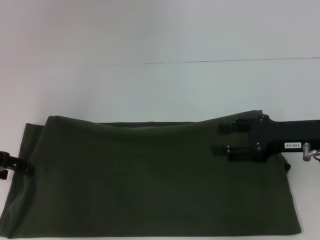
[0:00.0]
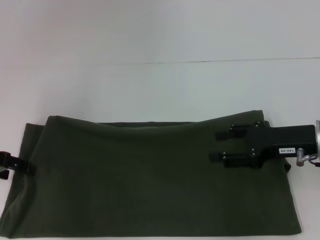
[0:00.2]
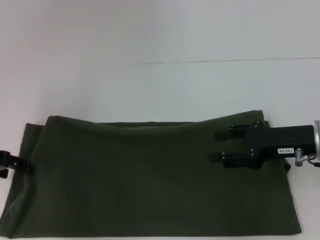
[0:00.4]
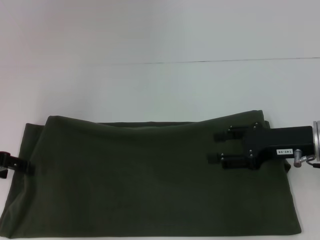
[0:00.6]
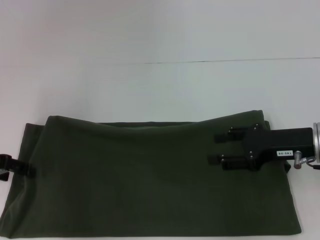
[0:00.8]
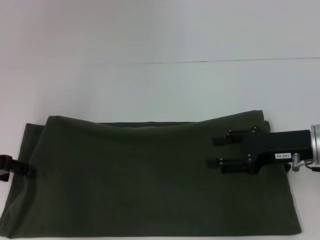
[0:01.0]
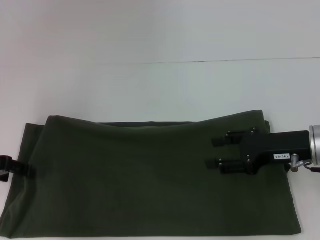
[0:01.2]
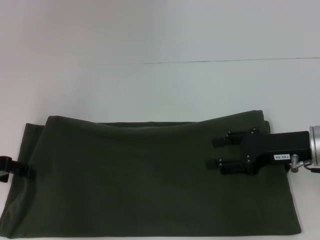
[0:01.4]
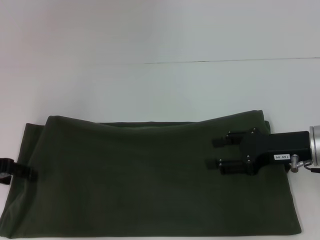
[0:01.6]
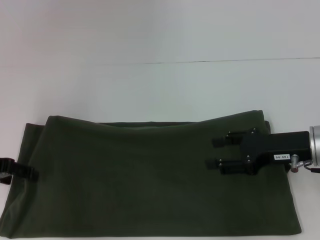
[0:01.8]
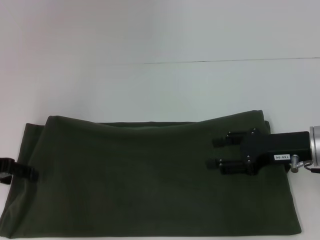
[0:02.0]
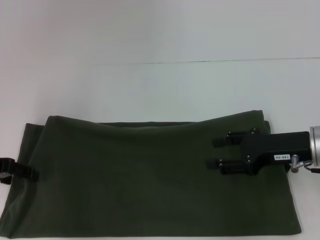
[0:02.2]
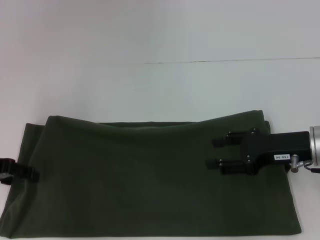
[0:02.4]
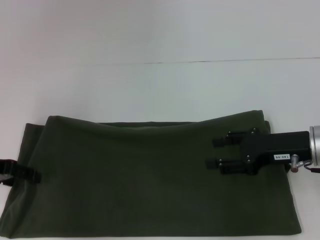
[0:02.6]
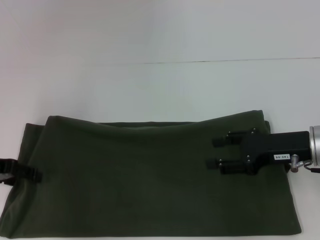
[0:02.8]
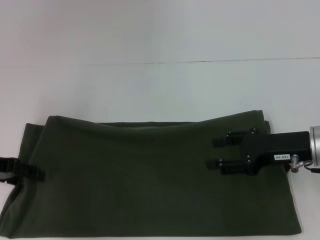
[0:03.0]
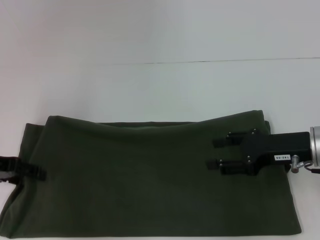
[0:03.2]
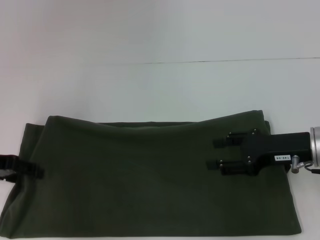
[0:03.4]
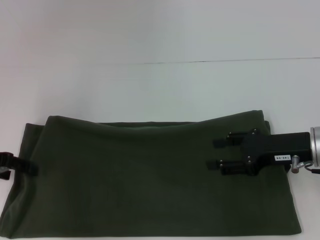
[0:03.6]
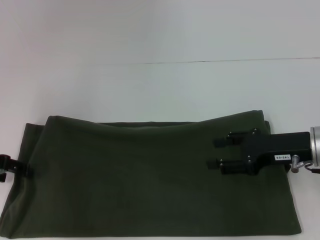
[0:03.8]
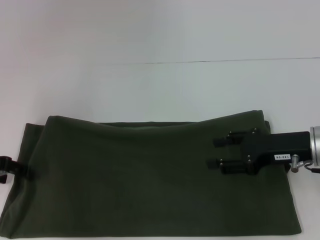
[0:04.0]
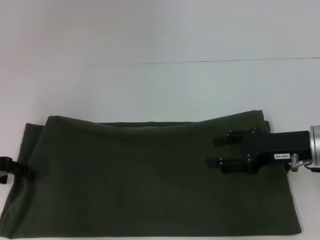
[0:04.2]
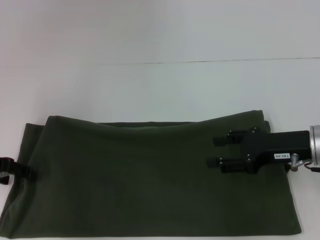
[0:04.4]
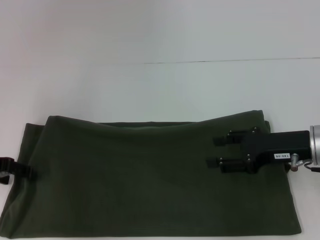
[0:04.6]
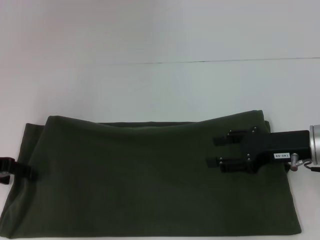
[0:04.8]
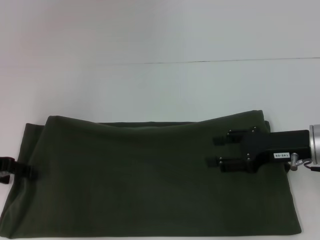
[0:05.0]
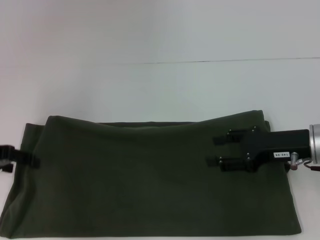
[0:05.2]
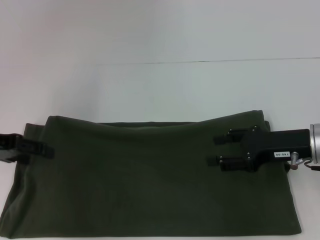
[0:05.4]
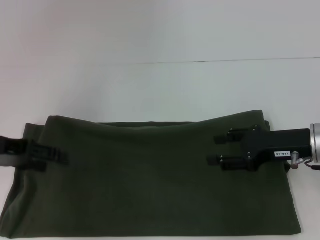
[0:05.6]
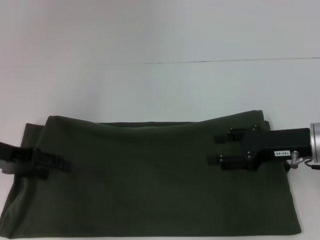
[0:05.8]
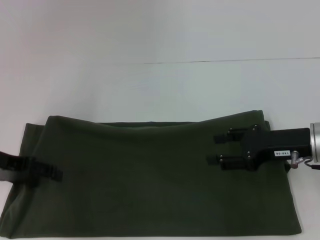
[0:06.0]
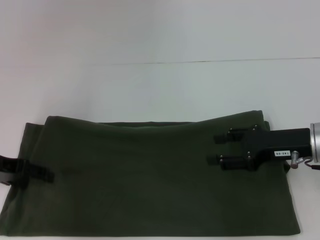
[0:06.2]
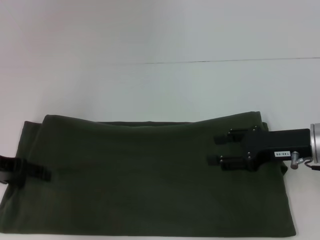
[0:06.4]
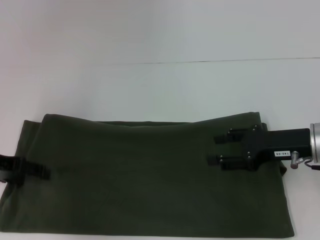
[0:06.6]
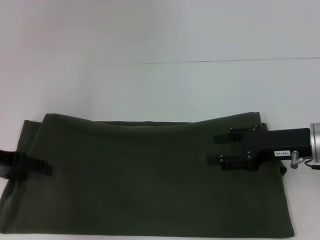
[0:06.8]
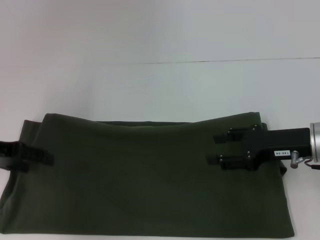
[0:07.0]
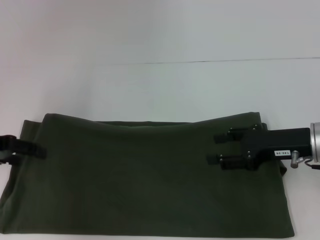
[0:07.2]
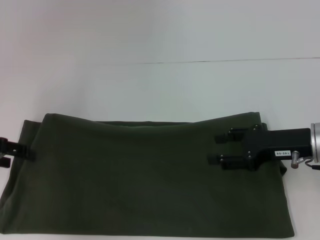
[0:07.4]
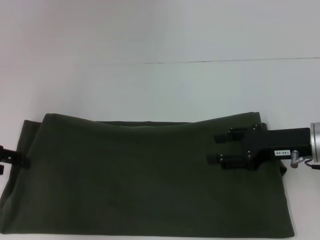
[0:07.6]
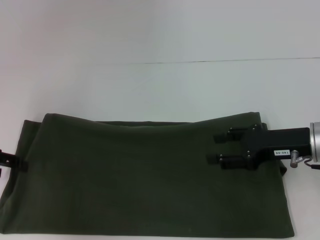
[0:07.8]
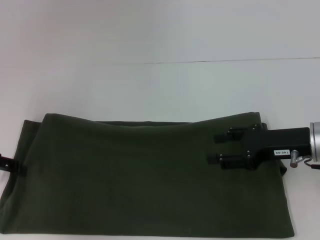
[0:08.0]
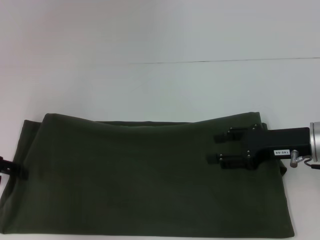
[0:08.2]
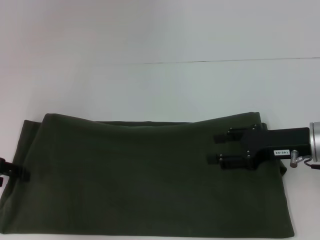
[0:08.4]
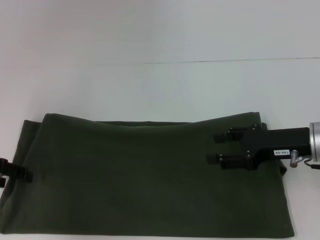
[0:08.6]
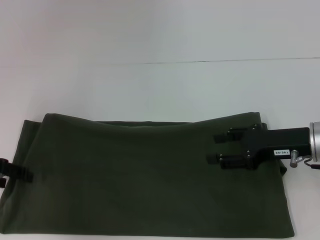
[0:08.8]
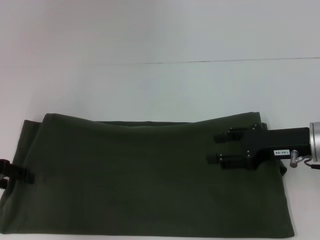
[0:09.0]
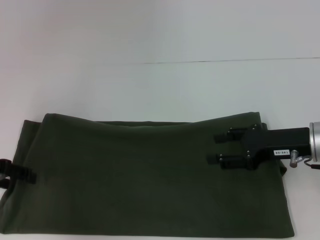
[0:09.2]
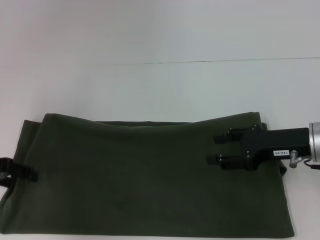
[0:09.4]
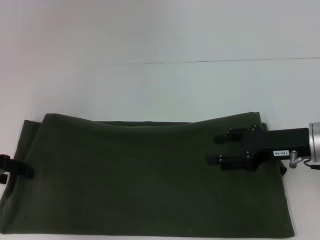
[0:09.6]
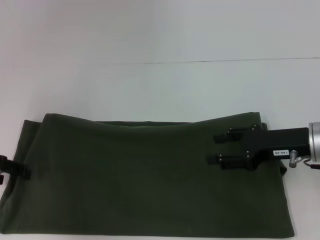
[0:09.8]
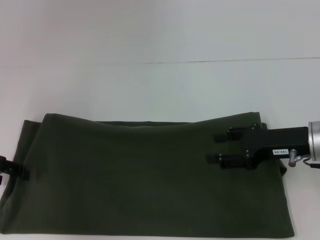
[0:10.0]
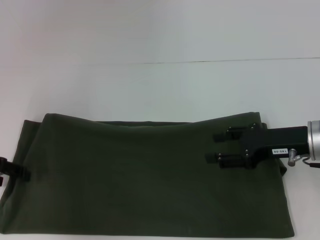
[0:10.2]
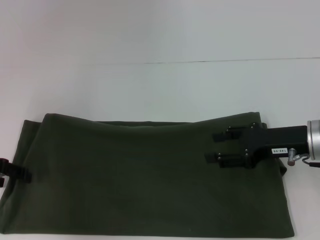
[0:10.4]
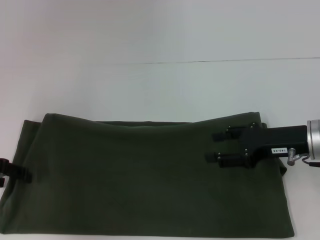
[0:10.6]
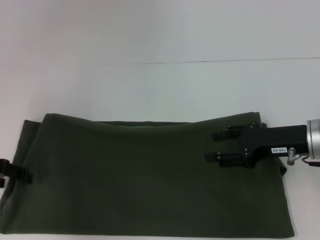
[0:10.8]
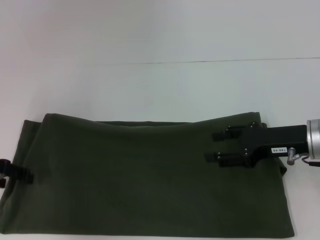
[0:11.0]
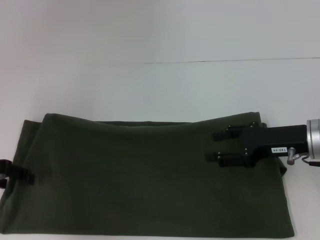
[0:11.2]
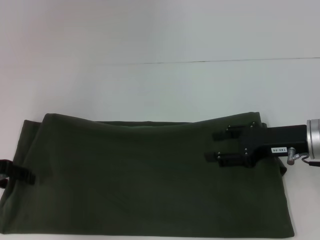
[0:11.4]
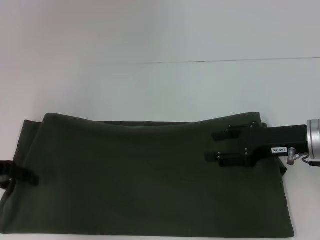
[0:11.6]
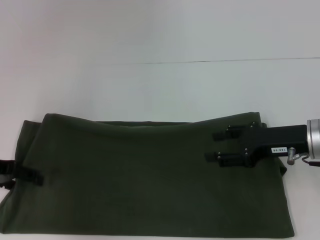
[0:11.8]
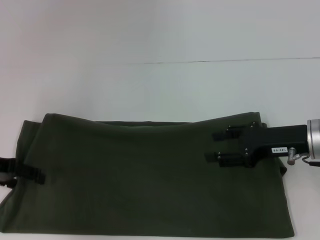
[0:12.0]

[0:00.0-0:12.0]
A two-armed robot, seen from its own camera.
0:00.0 to 0:01.6: The grippers stay close to where they were, moving slightly.
0:01.6 to 0:04.4: Neither gripper changes place.
0:04.4 to 0:09.0: There are only small adjustments of the grippers.
0:09.0 to 0:10.4: The two grippers keep their place.
0:10.4 to 0:12.0: The grippers make only small movements.

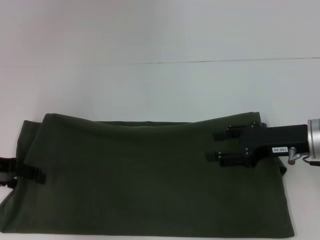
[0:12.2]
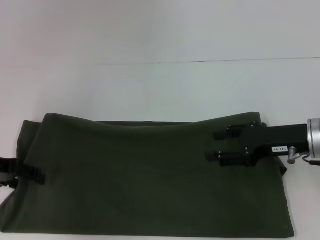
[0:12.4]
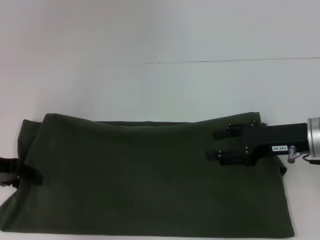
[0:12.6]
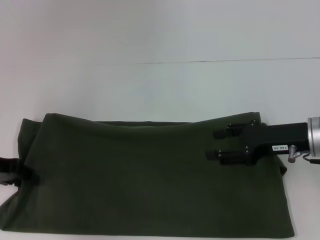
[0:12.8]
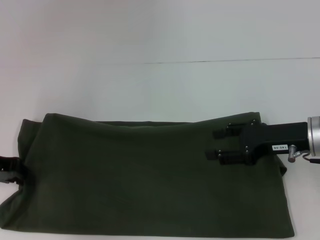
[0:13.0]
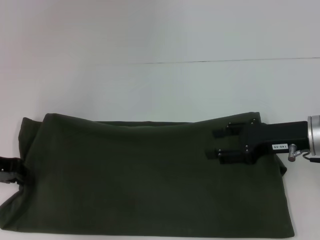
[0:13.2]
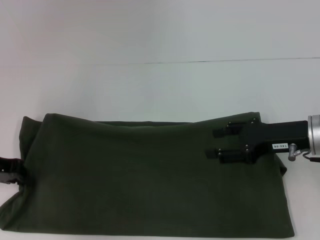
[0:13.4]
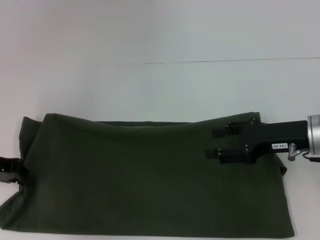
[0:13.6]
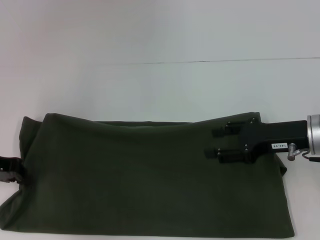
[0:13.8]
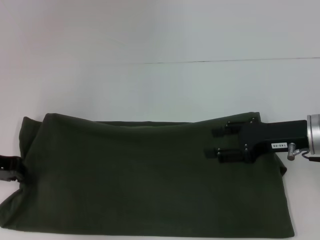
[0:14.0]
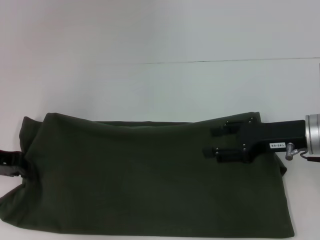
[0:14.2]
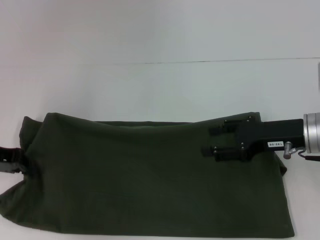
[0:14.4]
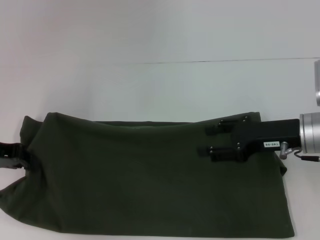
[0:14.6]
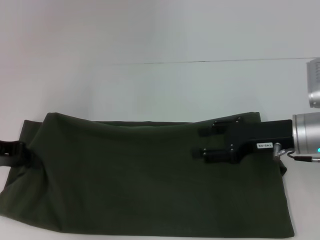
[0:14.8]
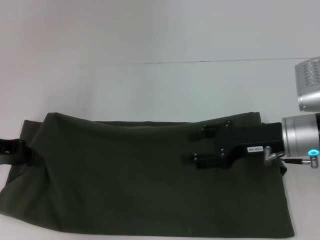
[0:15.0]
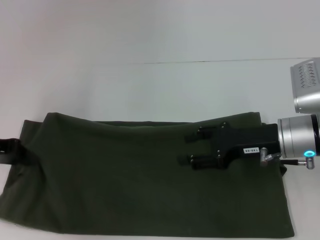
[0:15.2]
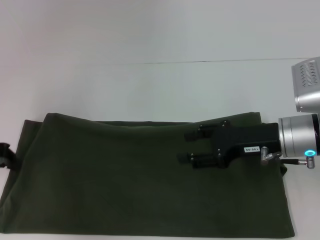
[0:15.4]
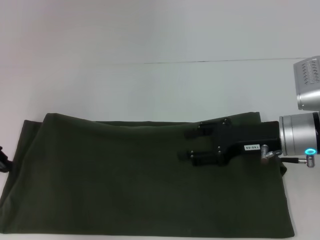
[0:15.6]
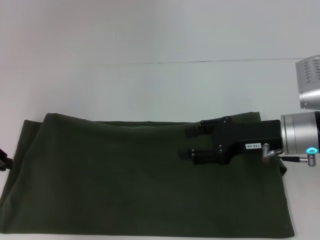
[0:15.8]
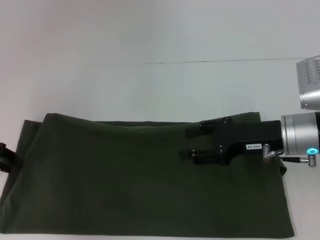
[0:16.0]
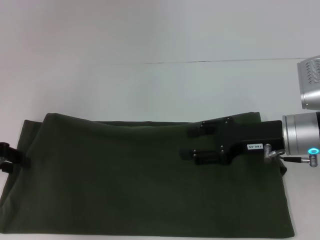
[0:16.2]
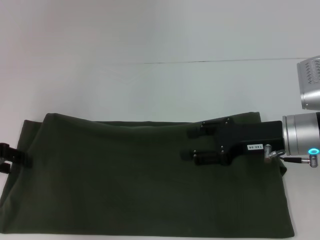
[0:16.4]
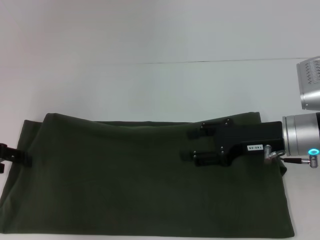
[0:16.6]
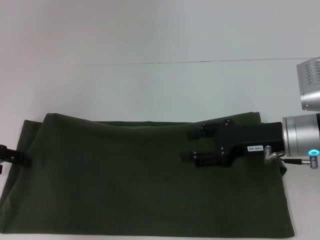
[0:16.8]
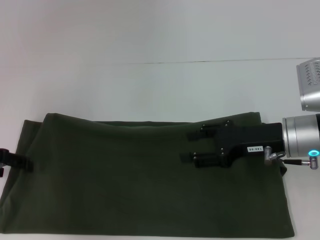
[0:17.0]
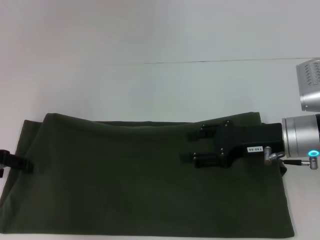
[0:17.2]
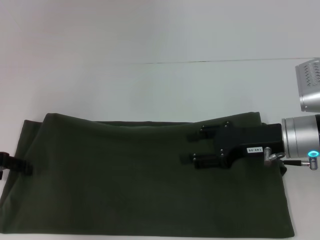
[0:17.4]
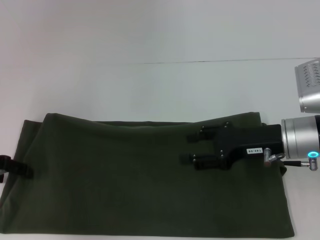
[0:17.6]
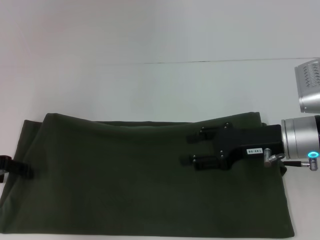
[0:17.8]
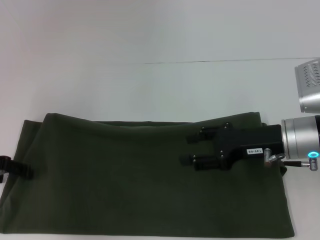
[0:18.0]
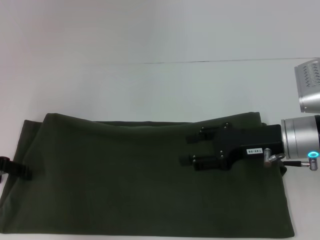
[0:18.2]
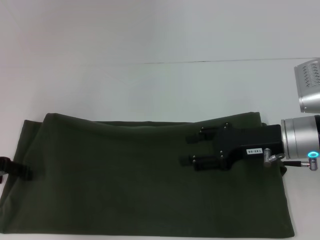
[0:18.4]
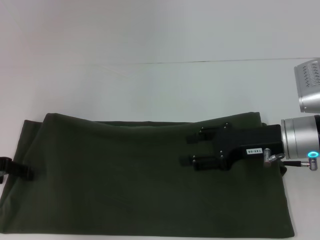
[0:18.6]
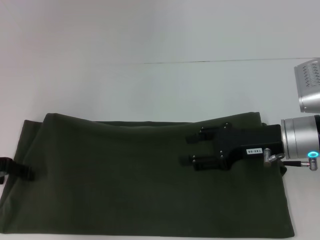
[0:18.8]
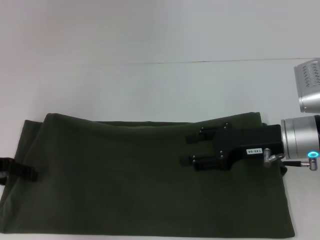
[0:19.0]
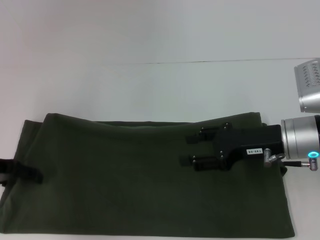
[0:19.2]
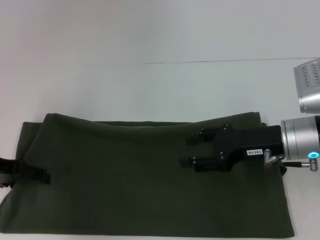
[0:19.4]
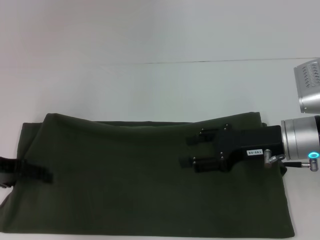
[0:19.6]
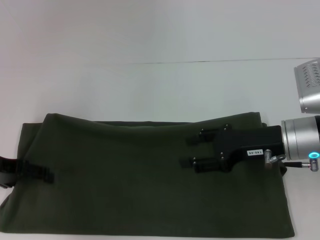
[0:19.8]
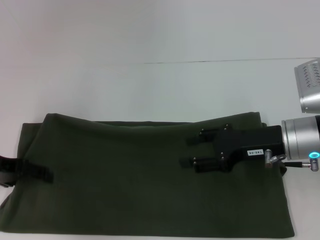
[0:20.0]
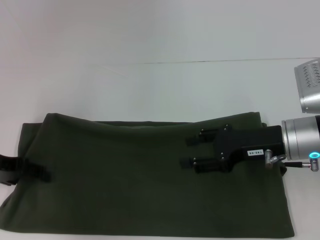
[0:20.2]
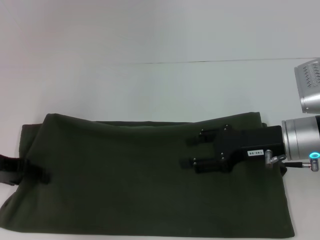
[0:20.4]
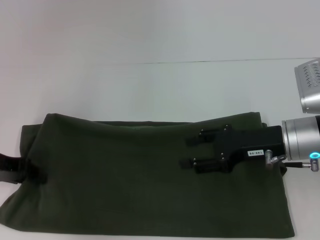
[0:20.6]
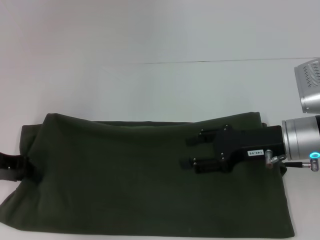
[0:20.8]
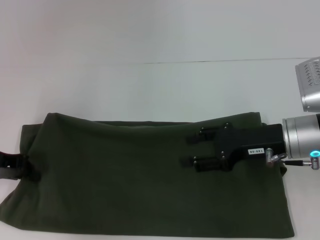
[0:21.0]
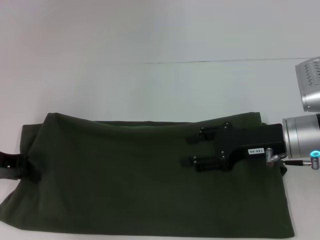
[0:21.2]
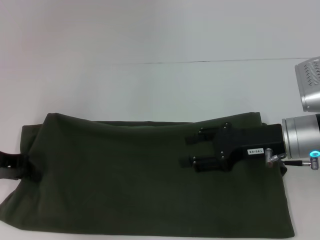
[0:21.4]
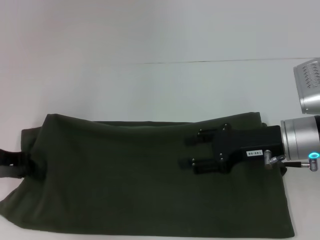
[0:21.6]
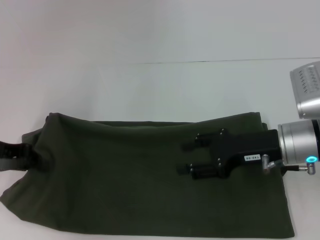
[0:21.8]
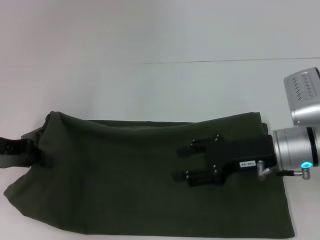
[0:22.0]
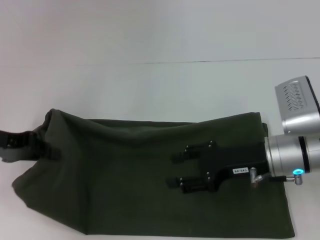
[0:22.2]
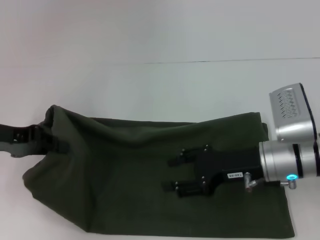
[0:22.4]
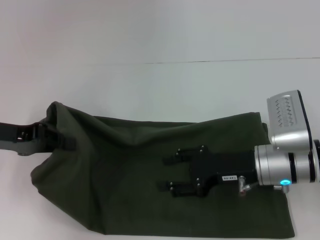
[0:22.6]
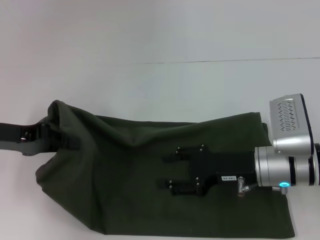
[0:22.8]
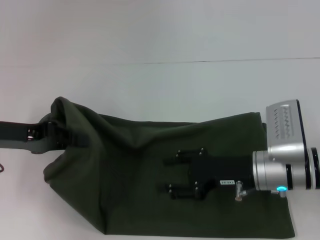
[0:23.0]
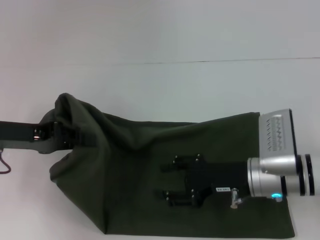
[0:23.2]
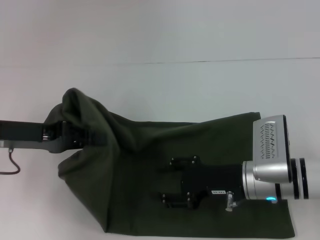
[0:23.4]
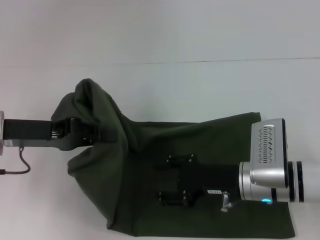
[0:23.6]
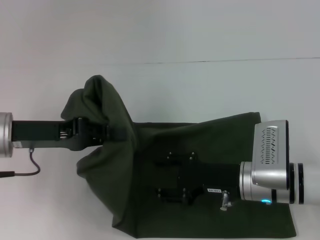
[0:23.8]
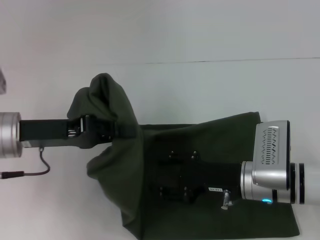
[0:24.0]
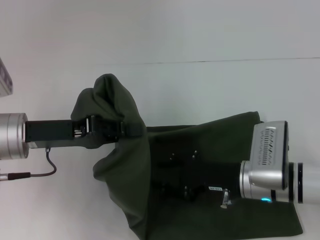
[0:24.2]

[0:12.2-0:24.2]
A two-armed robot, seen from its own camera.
0:12.2 to 0:13.8: The left gripper closes.
0:13.8 to 0:15.2: The grippers make only small movements.
0:15.2 to 0:16.6: The left gripper opens its fingers.
0:16.6 to 0:19.8: The grippers stay close to where they were, moving slightly.
0:19.8 to 0:21.2: The left gripper closes its fingers.
0:21.2 to 0:22.6: The right gripper changes place by some 5 cm.
0:22.6 to 0:24.2: The left gripper is displaced to the right by roughly 5 cm.
